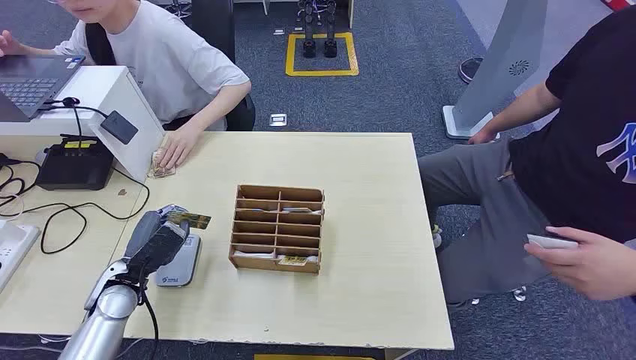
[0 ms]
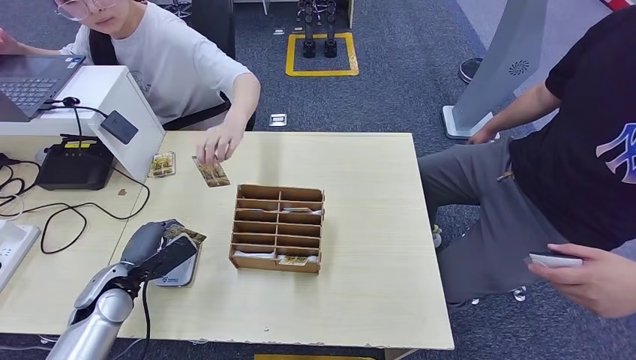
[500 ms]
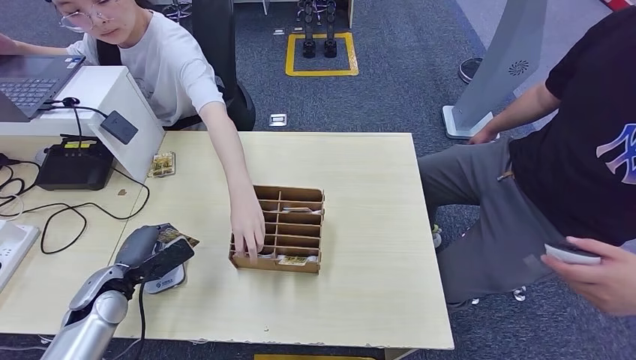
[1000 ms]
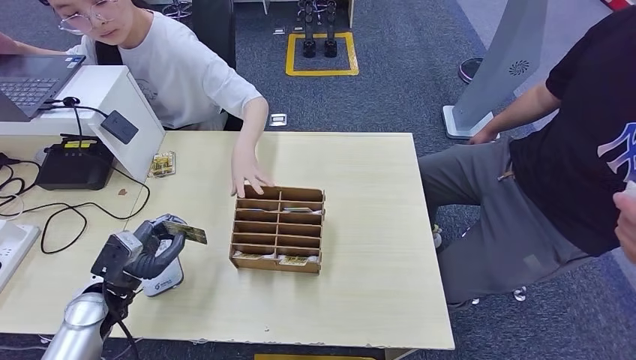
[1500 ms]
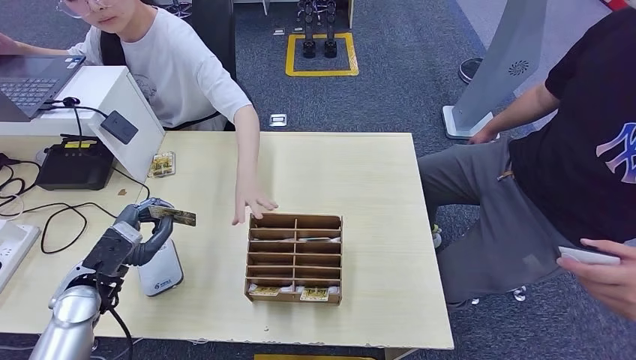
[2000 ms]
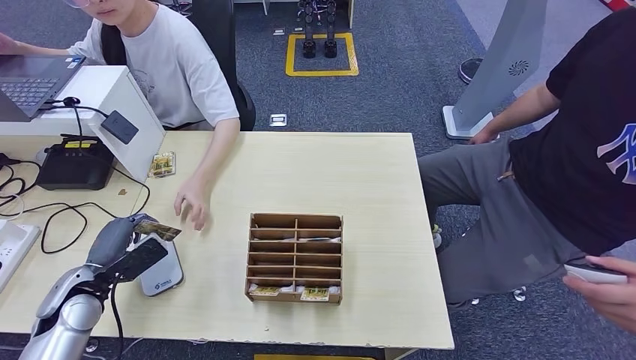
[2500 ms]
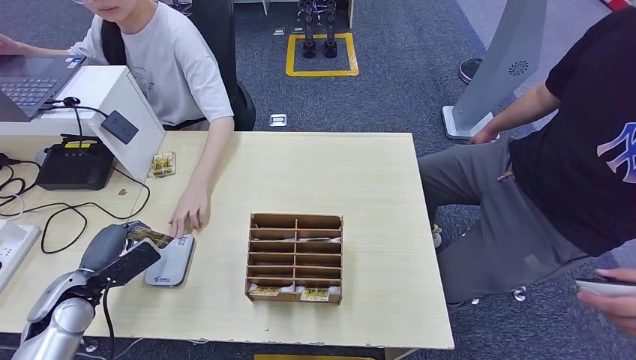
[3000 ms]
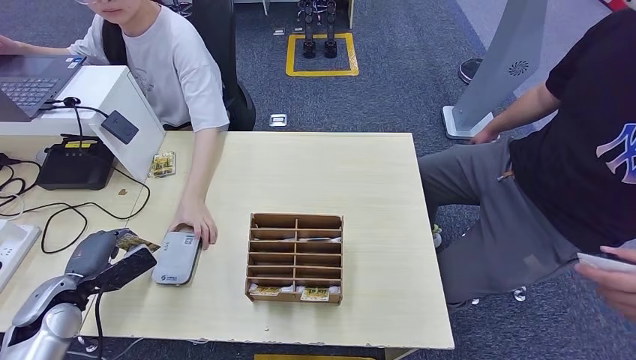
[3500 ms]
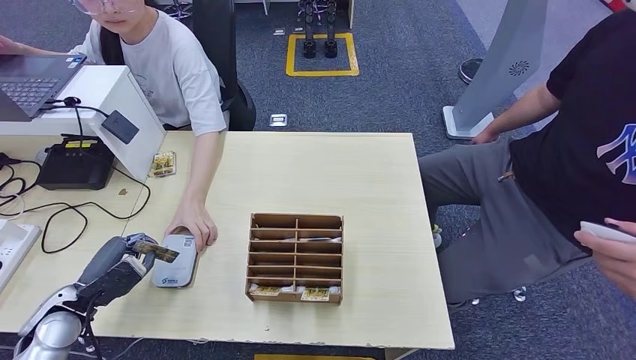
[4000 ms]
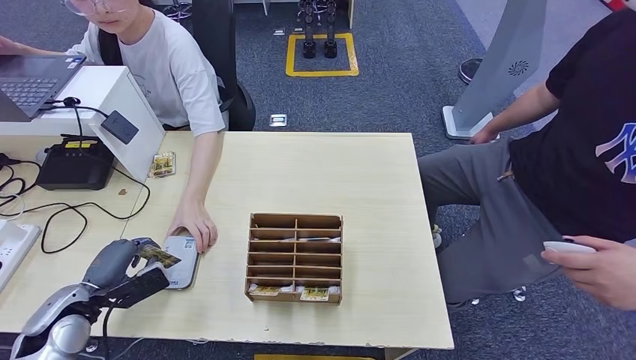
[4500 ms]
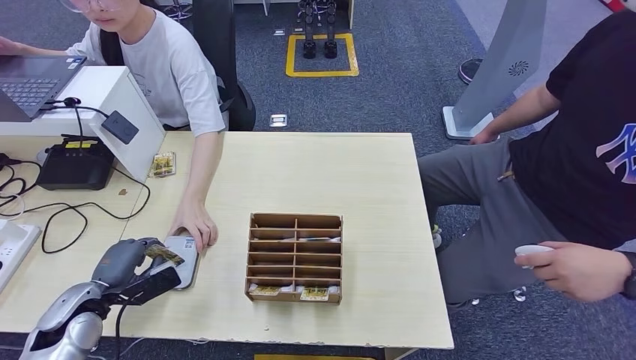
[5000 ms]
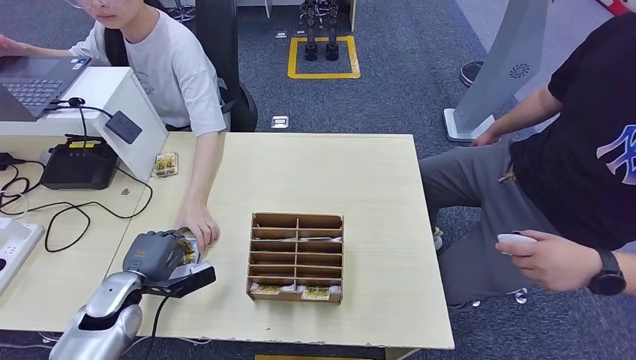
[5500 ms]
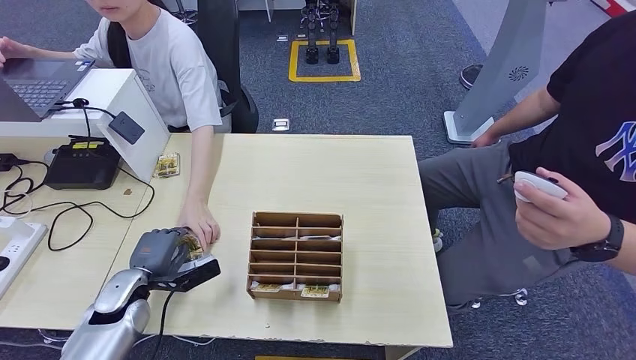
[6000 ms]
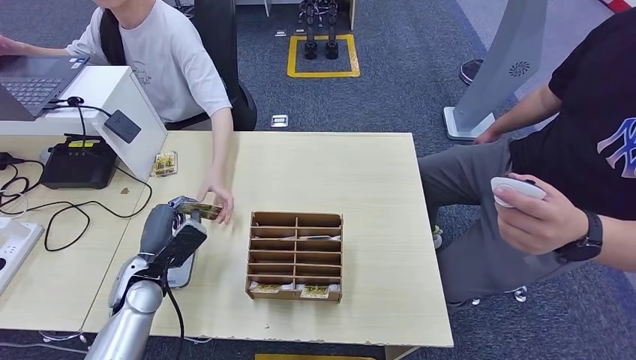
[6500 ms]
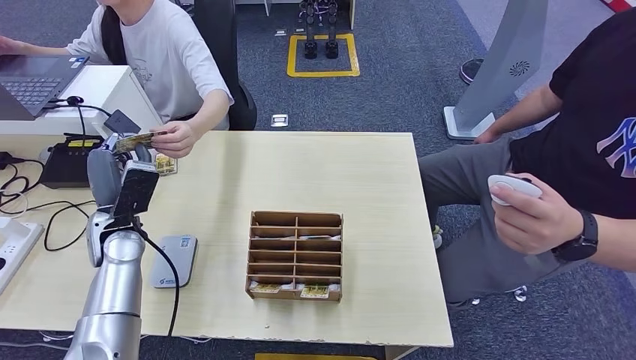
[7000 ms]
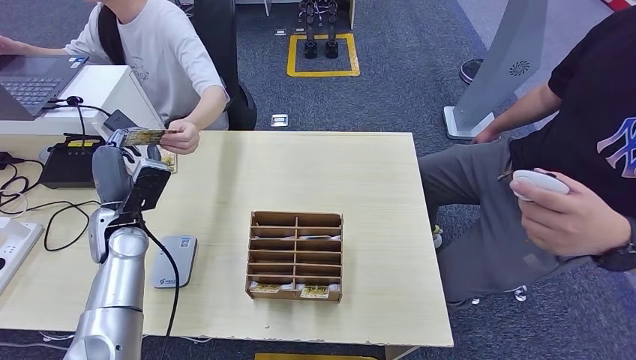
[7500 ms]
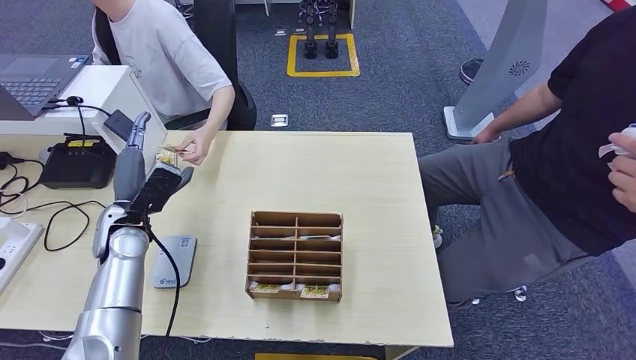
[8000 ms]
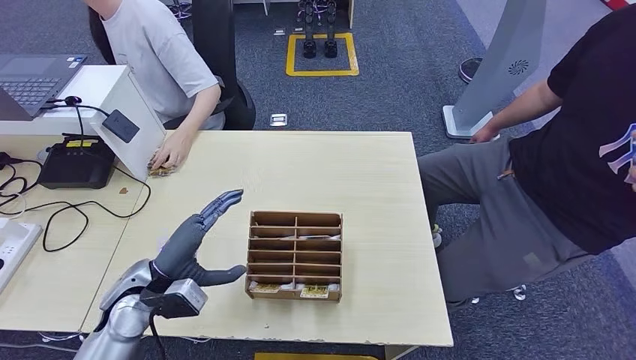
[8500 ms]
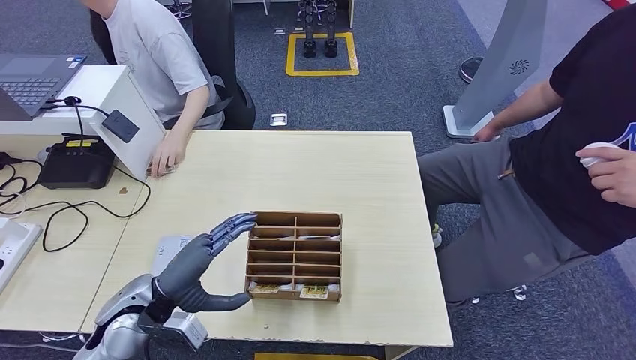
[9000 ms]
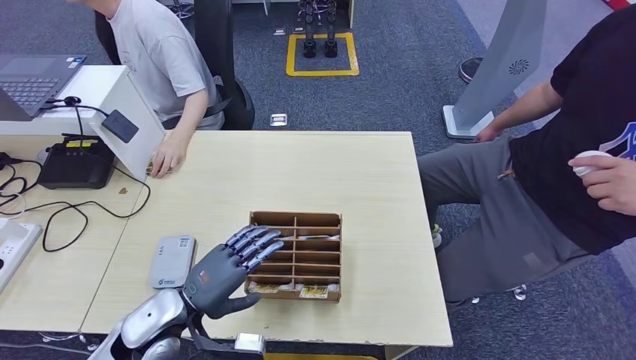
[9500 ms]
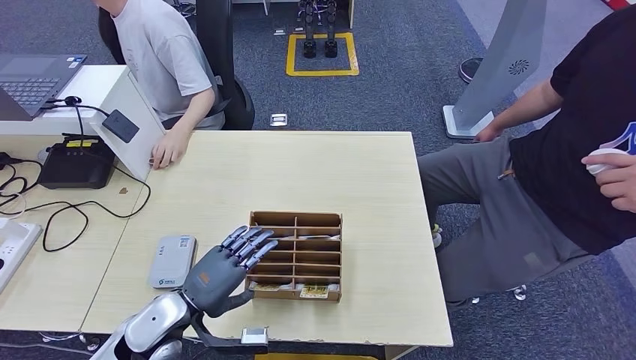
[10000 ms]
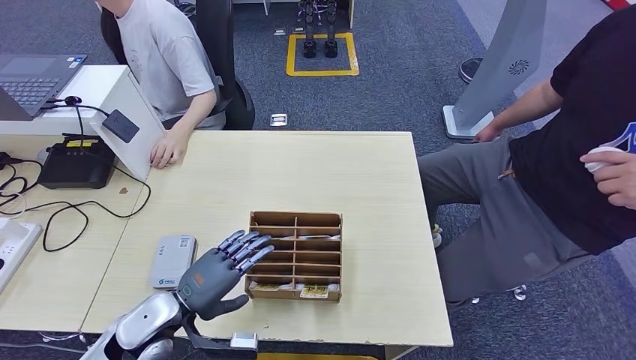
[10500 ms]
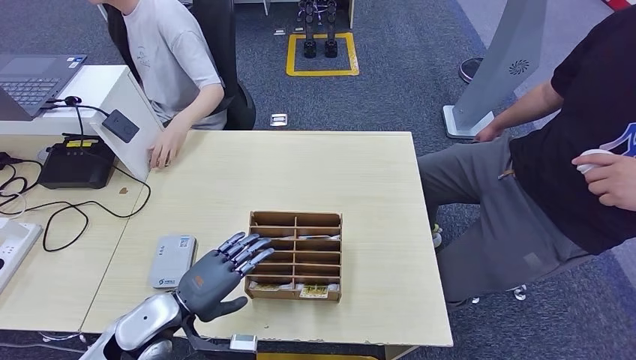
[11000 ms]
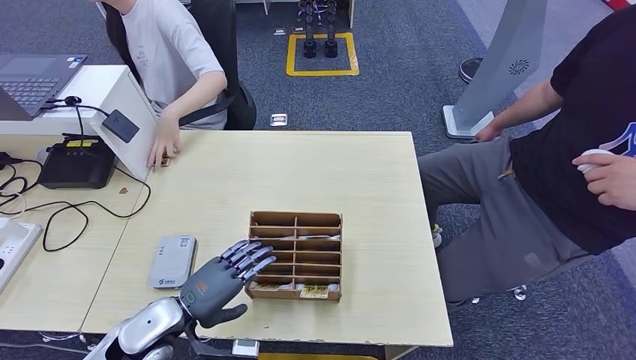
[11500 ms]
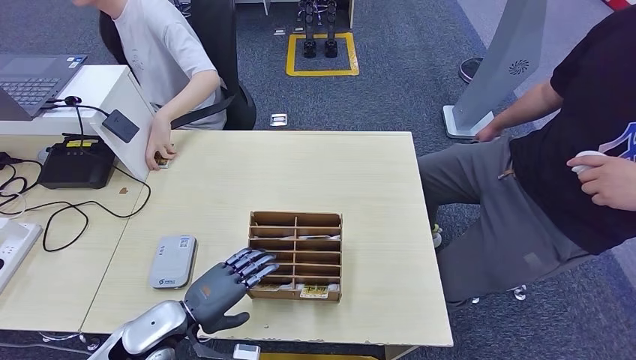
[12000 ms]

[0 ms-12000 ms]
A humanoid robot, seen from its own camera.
Step, 0 ms to 1500 ms: Take the ID card from the person's hand.
Step, 2000 ms to 5000 ms: Place the ID card on the card reader.
Step, 5500 ms to 7500 ms: Hand the ID card to the person.
2000 ms to 4000 ms: The left hand heads to the left, covering roughly 5 cm.
8000 ms to 10000 ms: The left hand travels backward, to the right and downward by roughly 20 cm.
10000 ms to 12000 ms: The hands move only a little.

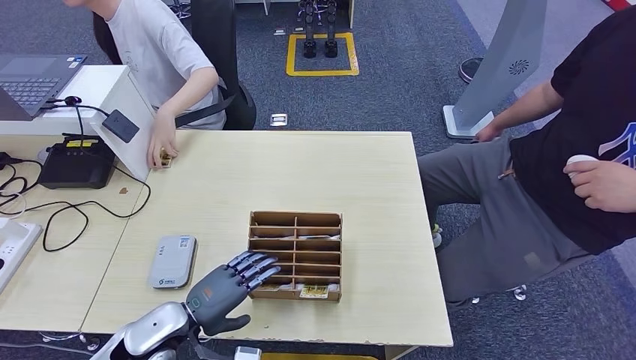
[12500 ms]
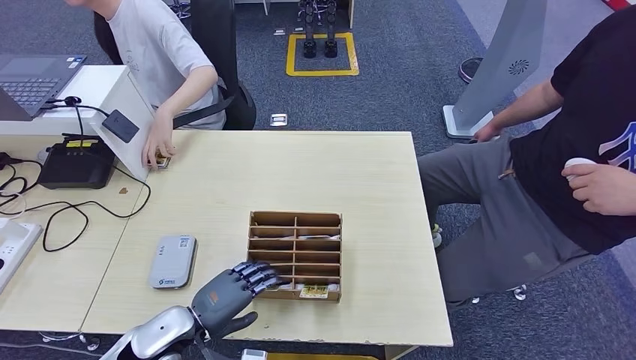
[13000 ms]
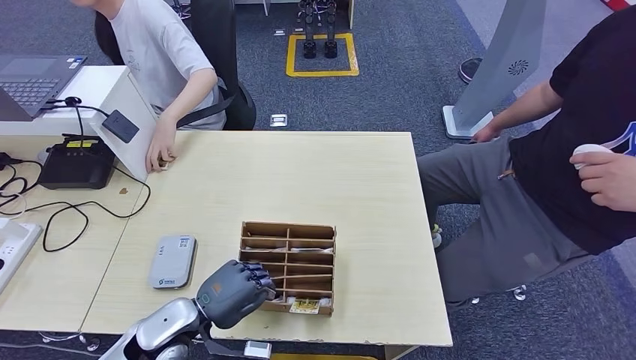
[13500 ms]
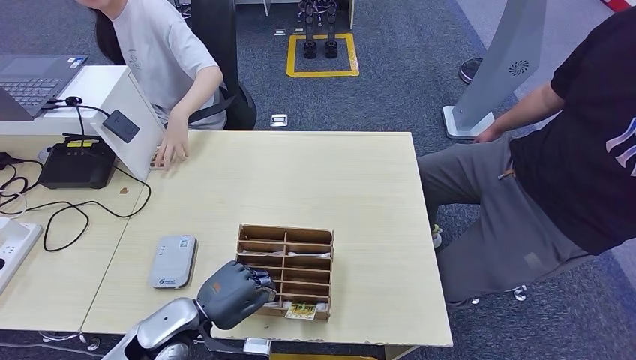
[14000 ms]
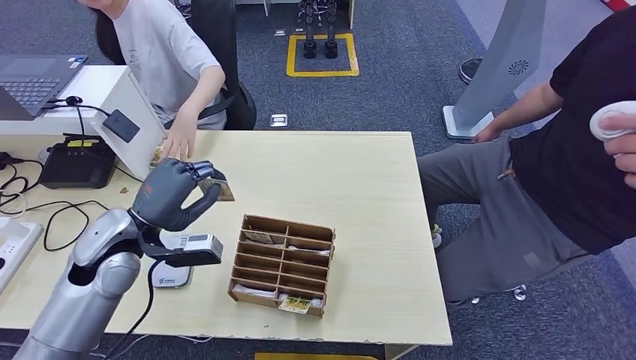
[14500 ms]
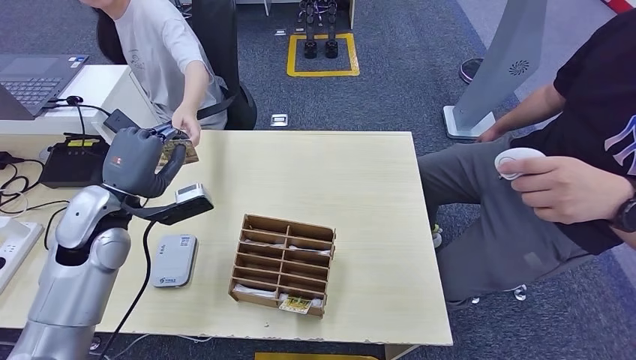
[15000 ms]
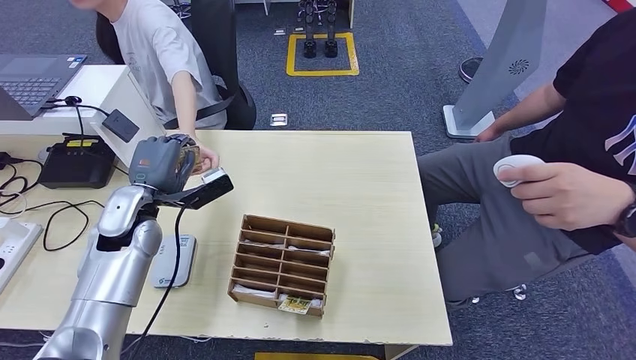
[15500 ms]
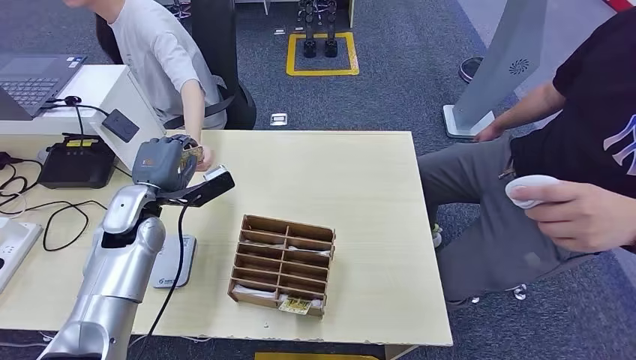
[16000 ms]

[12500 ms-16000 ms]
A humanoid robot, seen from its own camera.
Step, 14500 ms to 15500 ms: Hand the room key to the person.
12500 ms to 14500 ms: The left hand is displaced upward and forward by approximately 15 cm.
14500 ms to 16000 ms: The left hand travels forward by roughly 5 cm.
